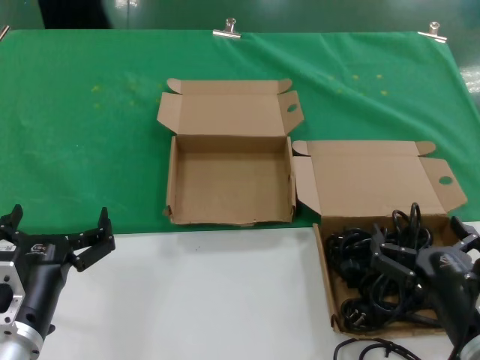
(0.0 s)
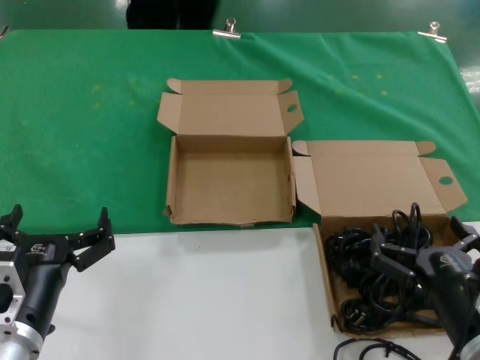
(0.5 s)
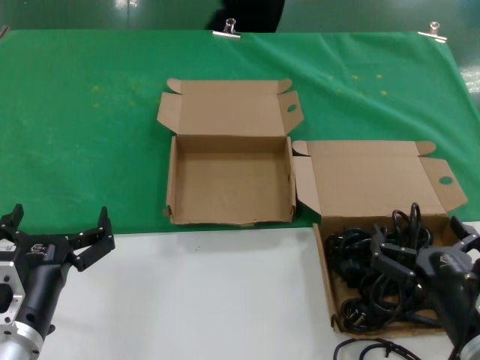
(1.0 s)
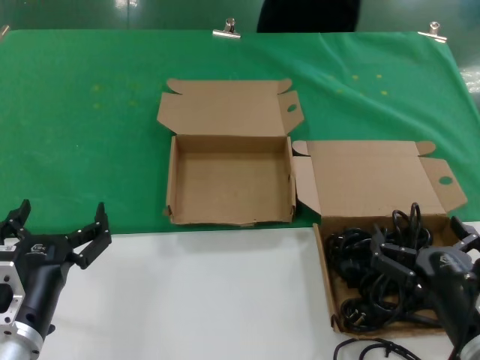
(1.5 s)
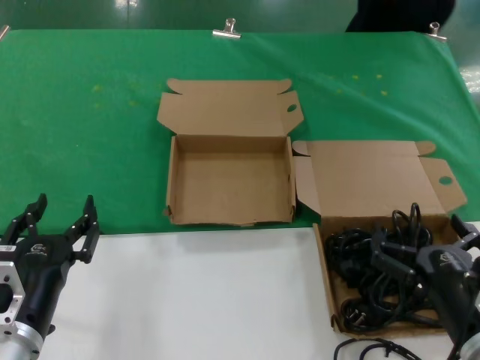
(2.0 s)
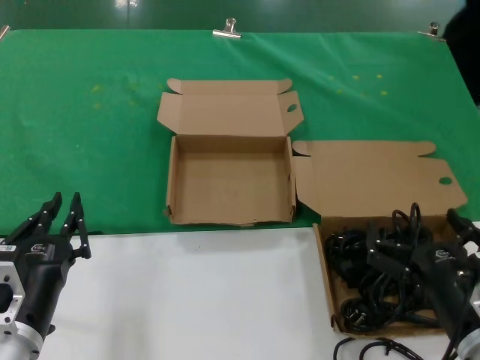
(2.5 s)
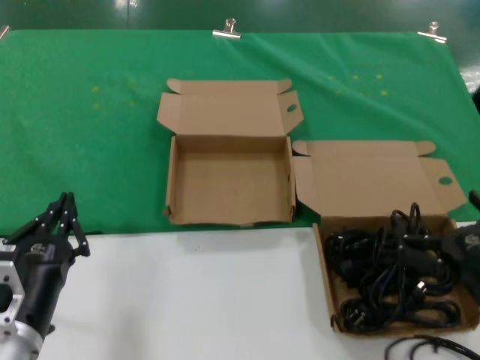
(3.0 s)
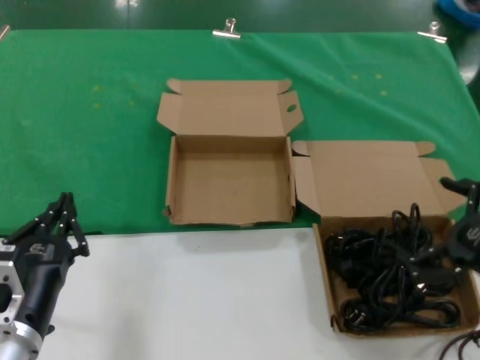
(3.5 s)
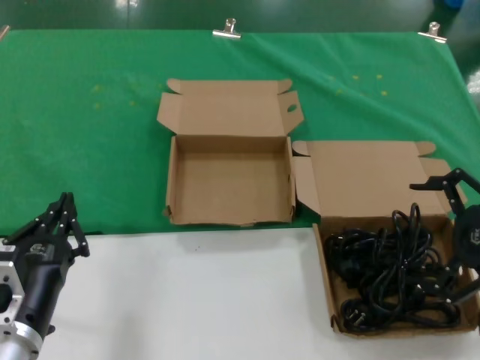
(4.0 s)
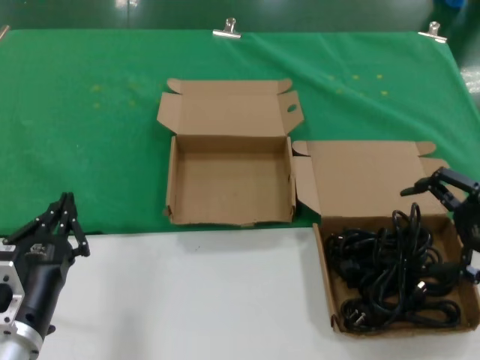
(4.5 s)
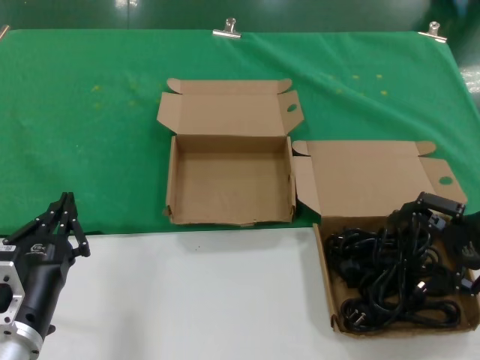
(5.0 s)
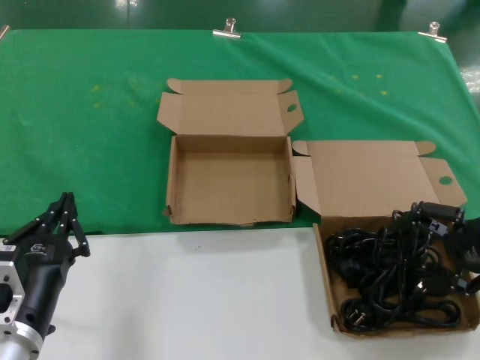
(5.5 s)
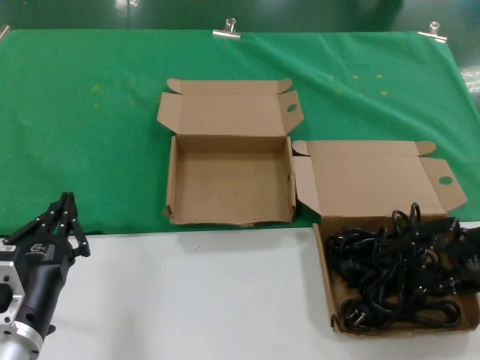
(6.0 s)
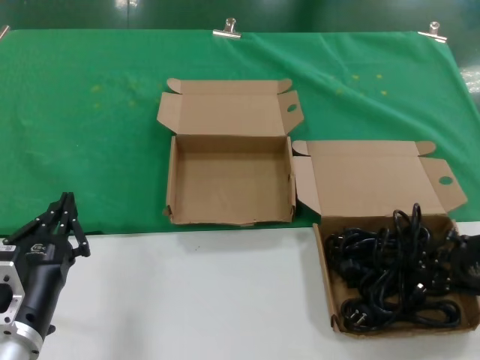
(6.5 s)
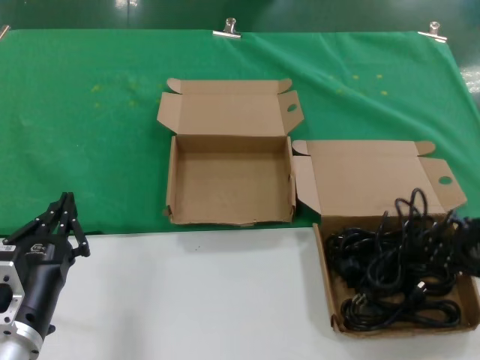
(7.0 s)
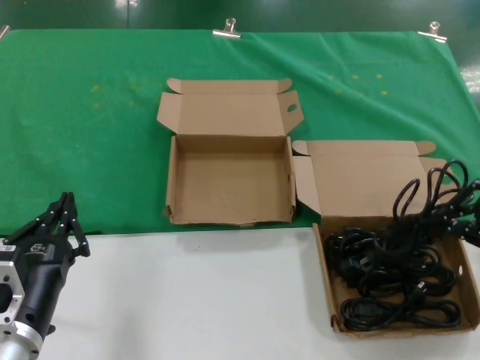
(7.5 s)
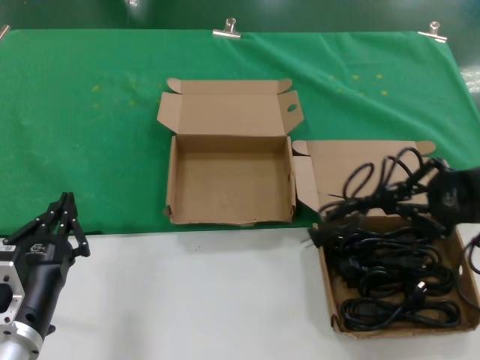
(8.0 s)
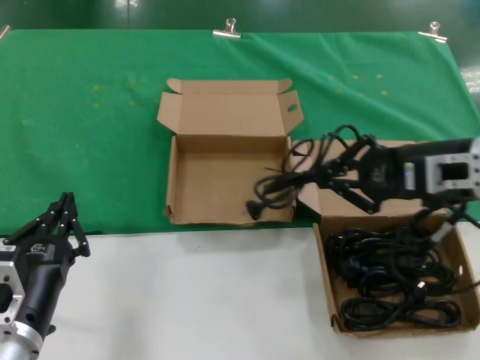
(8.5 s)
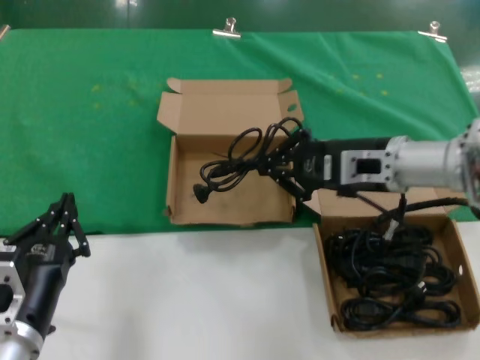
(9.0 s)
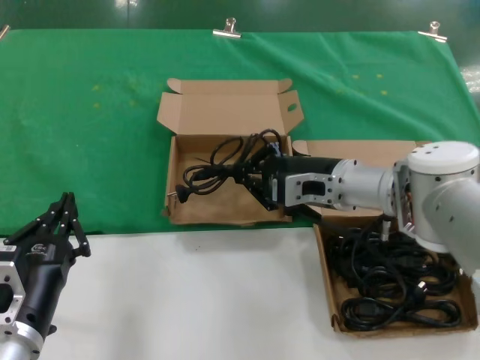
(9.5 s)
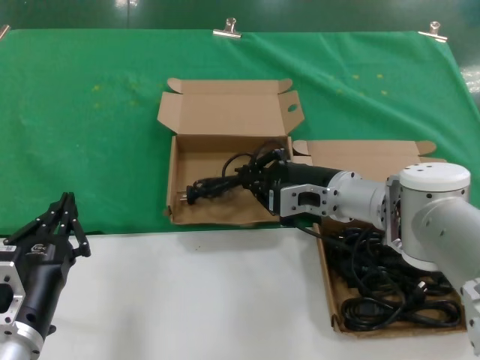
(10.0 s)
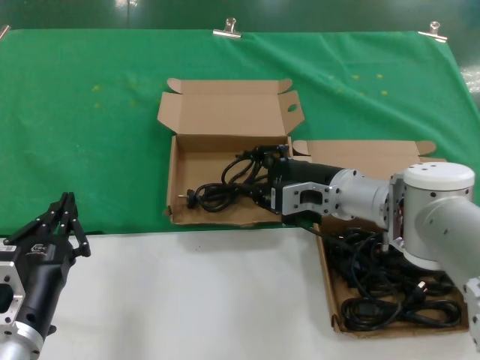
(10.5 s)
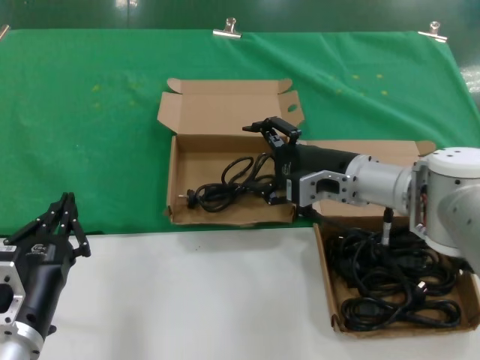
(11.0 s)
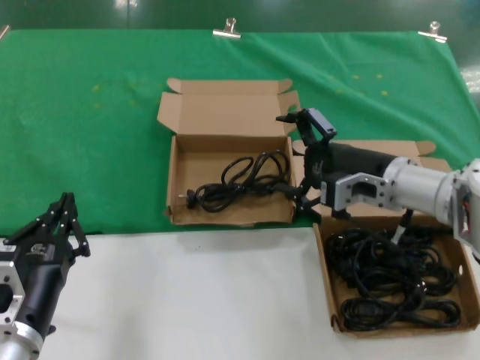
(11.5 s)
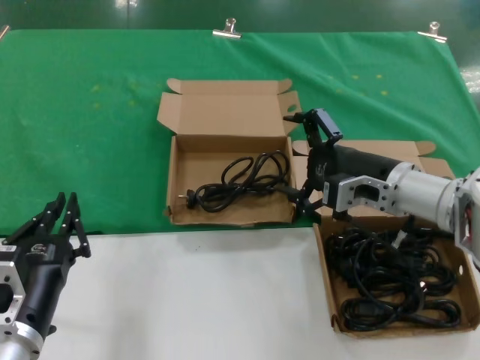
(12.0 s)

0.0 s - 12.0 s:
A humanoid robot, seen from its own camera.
Task of the whole recording: take the parts from the box containing them and put them into an empty box.
Step, 0.0 s - 6.0 s: Grasp the data cable.
Step, 7.0 s - 10.5 s: Place the data cable in the another box.
0.0 s - 2.0 s: Both hands stay about where they are.
2.0 s - 4.0 s: The right hand heads upward, to the right and forward, covering some 20 cm.
4.0 s - 6.0 s: The right hand heads forward, covering some 10 cm.
6.0 s - 8.0 s: The right hand travels upward by roughly 5 cm.
8.0 s - 10.0 s: The right hand travels to the left, downward and forward by some 25 cm.
10.0 s - 12.0 s: The right hand shifts roughly 5 cm to the right.

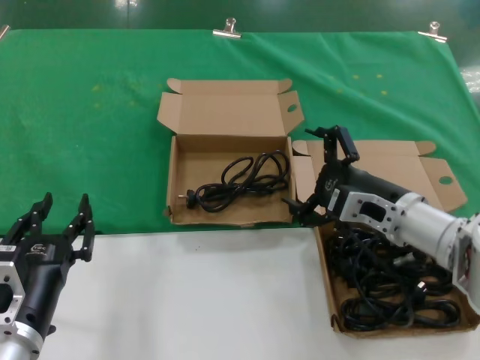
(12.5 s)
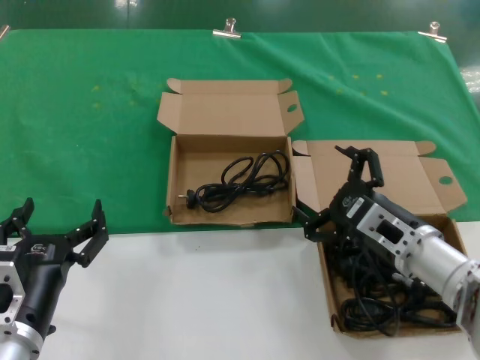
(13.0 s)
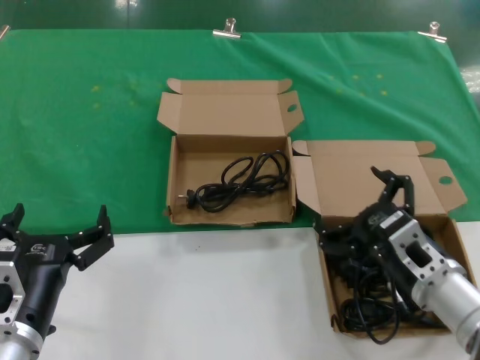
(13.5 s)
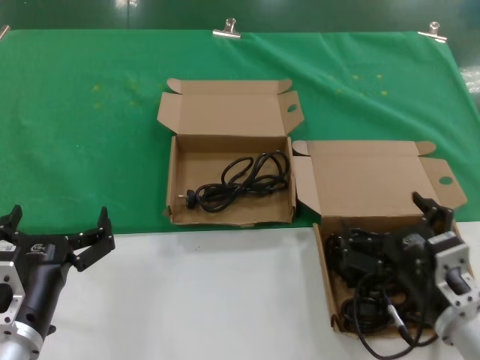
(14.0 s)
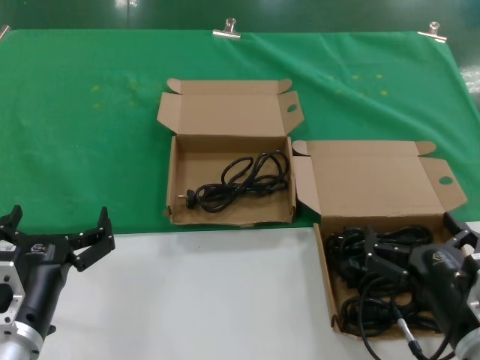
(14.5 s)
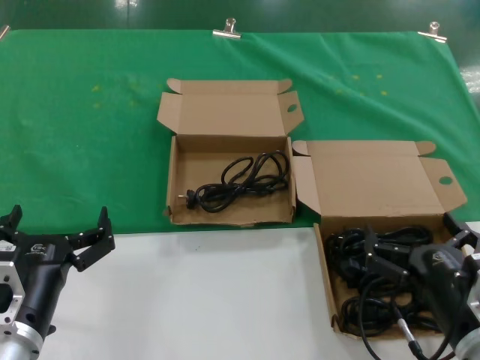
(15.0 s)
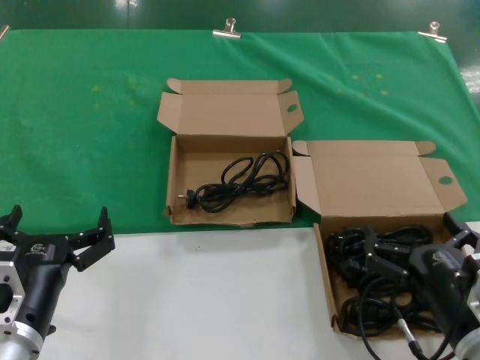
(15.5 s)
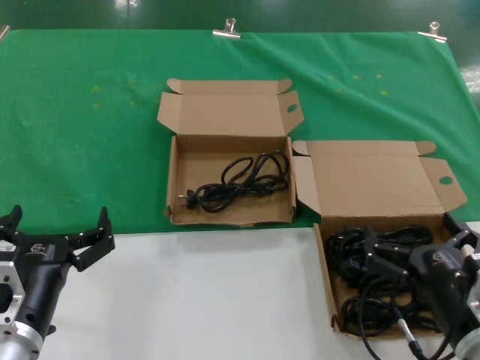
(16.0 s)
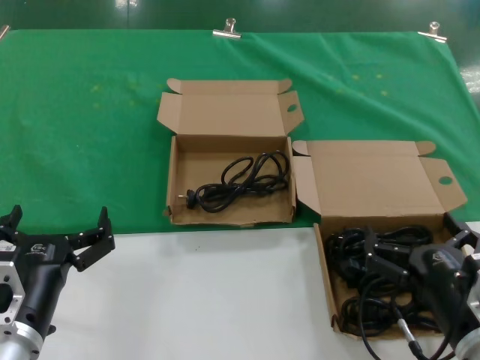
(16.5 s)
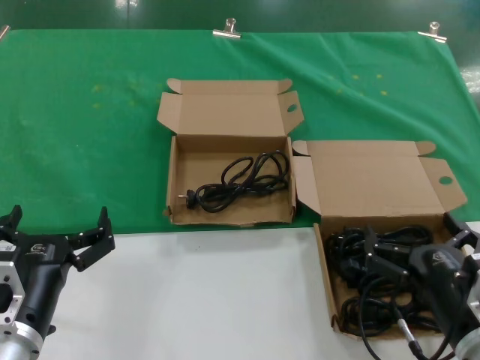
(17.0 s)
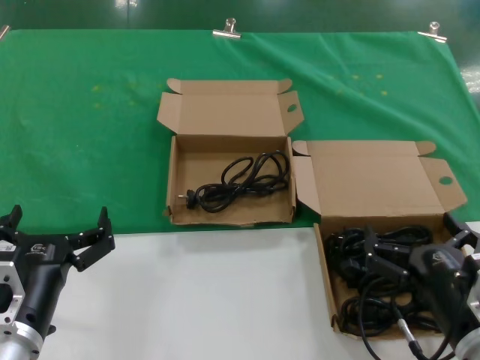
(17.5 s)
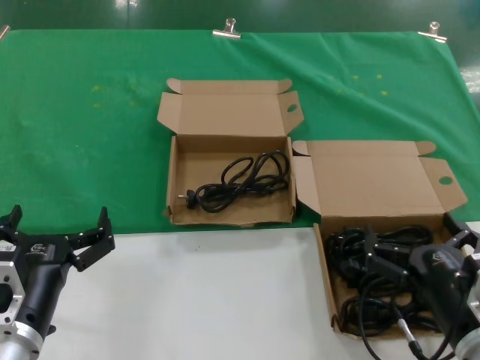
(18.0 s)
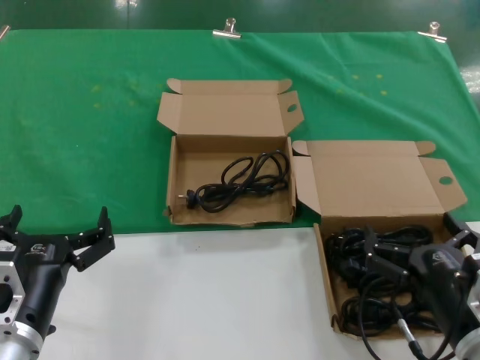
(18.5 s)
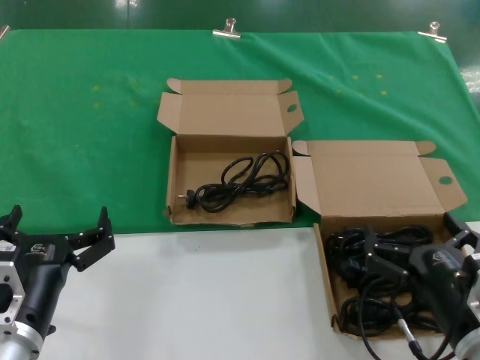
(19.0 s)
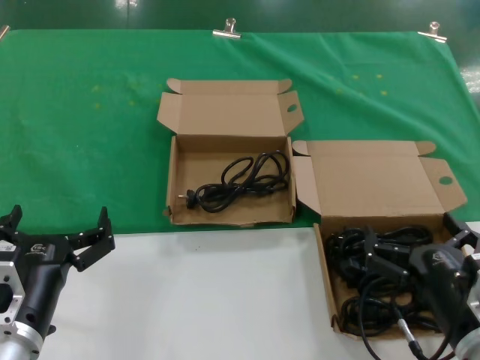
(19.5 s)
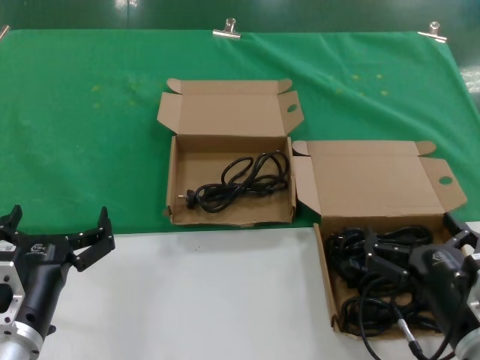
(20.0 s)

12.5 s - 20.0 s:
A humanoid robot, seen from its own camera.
Task of the whole recording: take the parts from the box containing them and put them into an empty box.
12.5 s - 14.5 s: The right hand heads backward, covering approximately 20 cm.
14.5 s - 20.0 s: Both hands stay about where they are.
